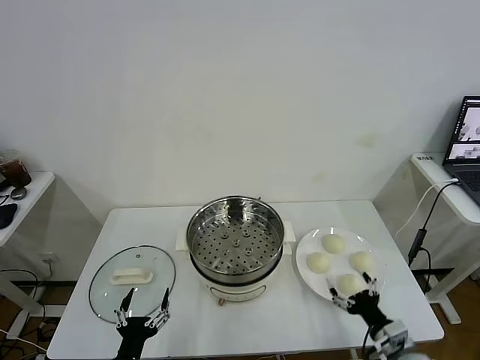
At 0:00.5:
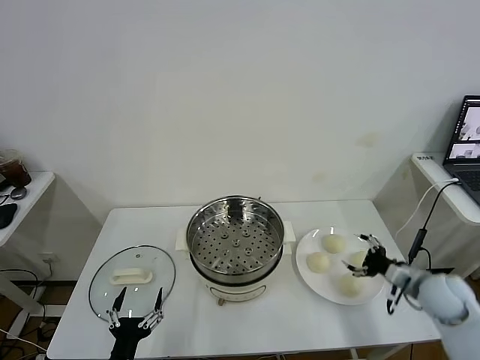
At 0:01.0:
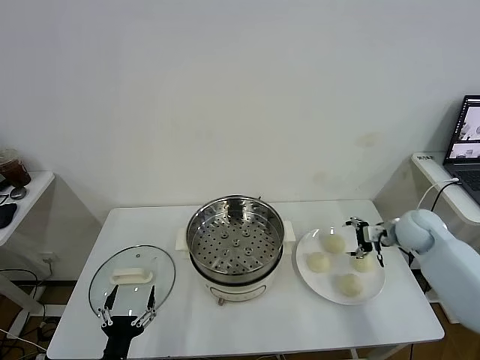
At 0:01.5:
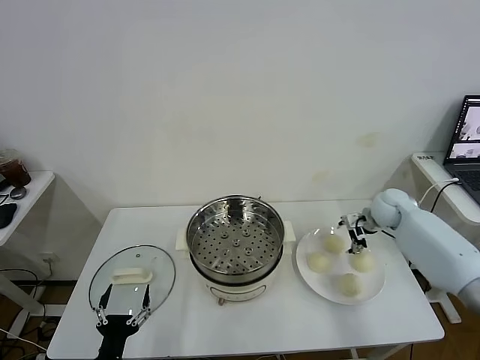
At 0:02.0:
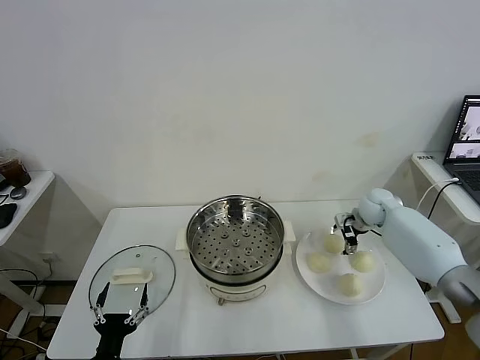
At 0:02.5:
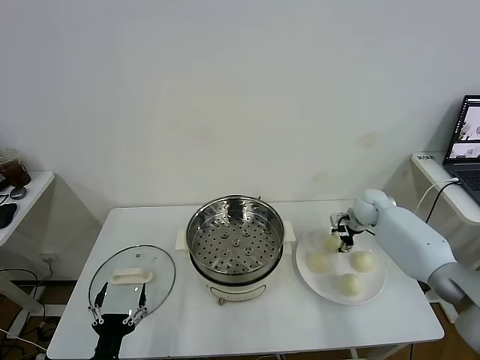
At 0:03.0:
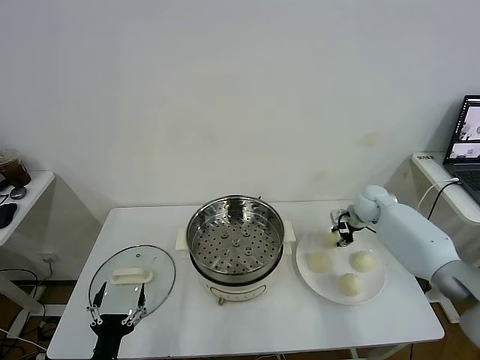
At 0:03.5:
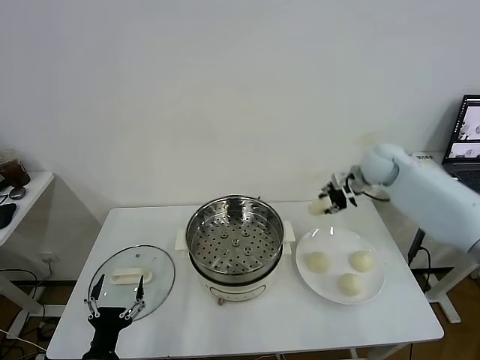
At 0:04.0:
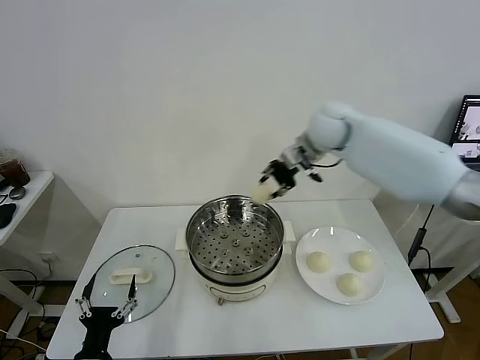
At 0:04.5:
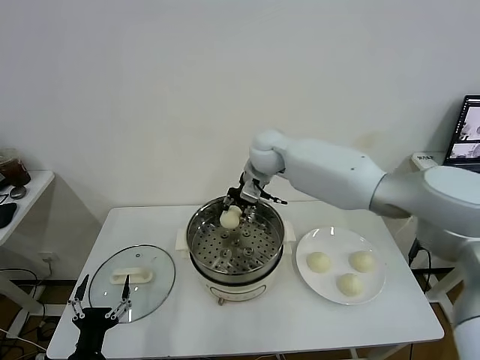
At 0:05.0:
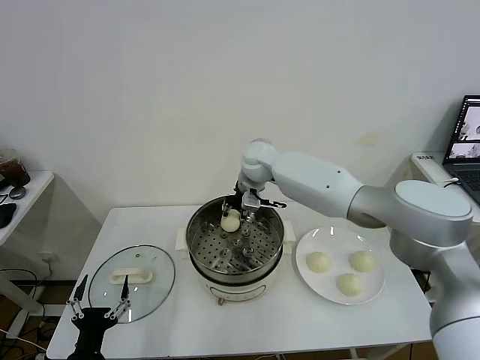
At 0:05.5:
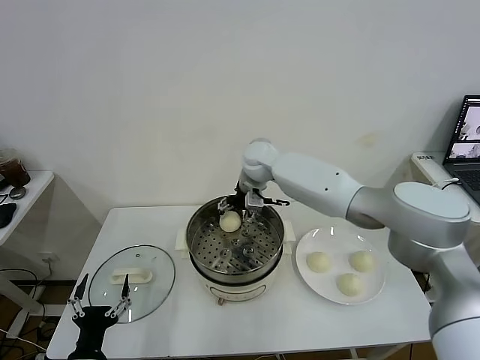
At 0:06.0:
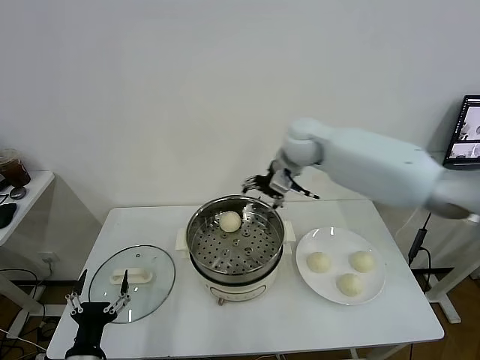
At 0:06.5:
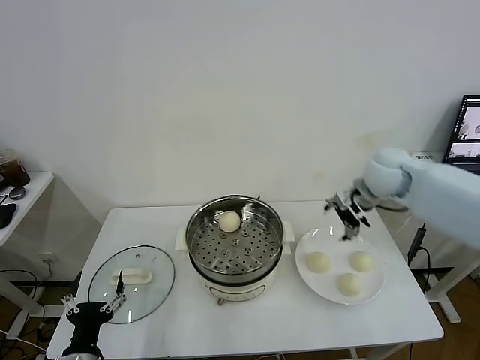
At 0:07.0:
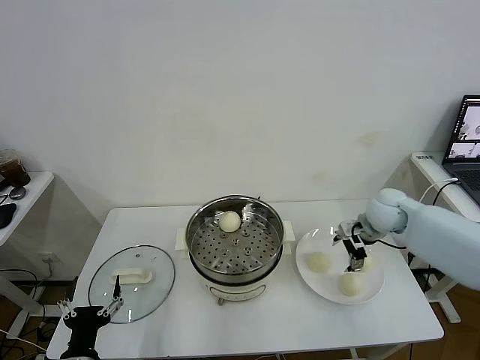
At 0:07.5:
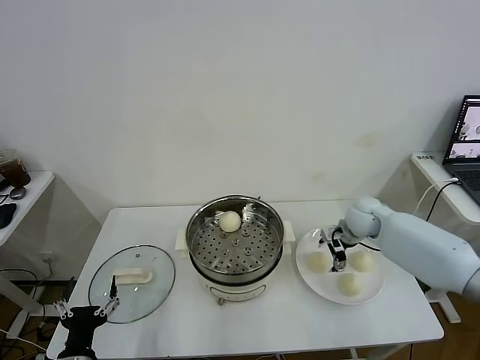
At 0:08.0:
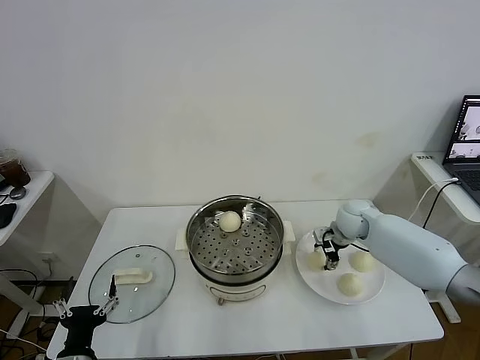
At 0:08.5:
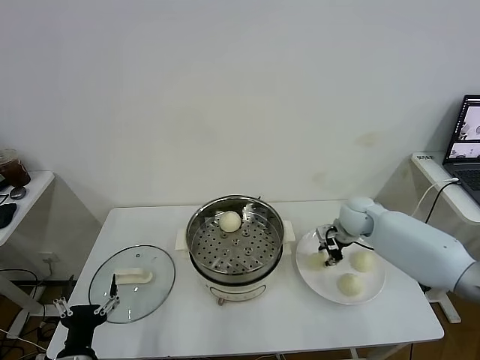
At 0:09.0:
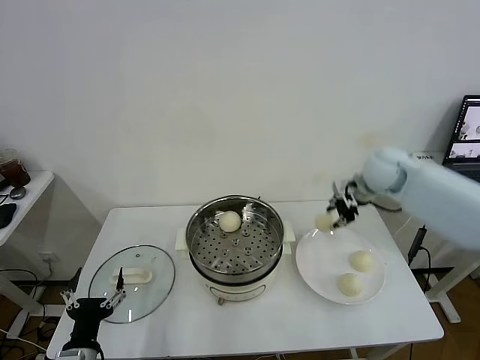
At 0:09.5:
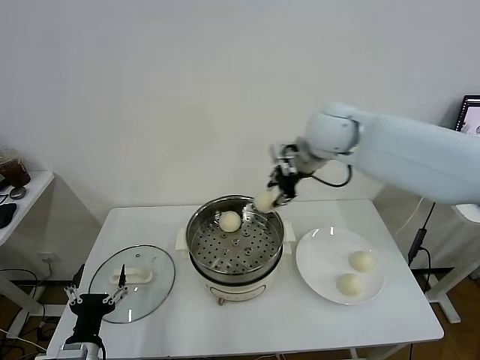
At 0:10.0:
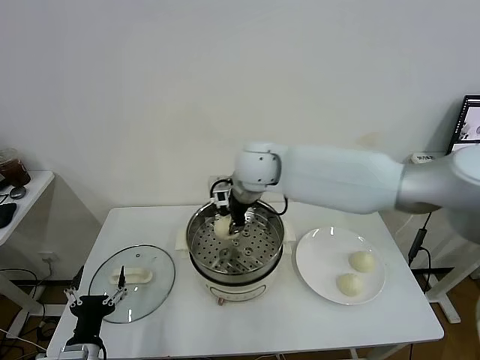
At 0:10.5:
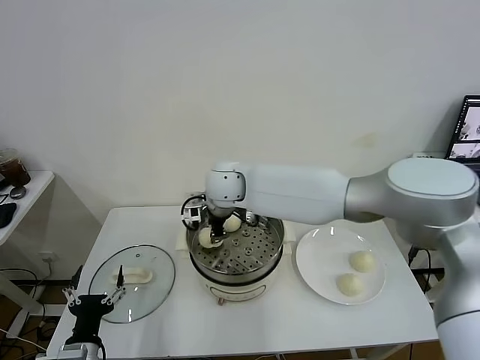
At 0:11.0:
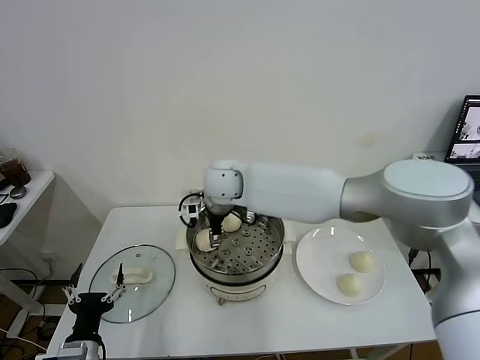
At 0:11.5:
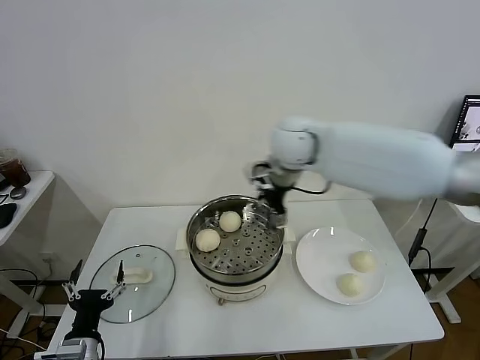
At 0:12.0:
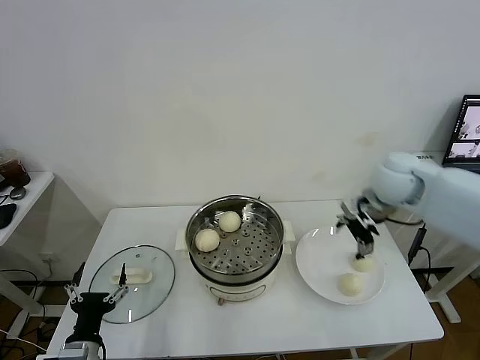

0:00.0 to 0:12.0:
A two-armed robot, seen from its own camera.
Task of the whole recording: take steamed baozi put them in steamer.
Step, 0:00.0 to 0:02.5: Grasp the baozi in the plate with right gripper.
Step, 0:03.0 to 0:05.5: Place the baozi on the steamer with right gripper.
Step, 0:06.0 to 0:08.0: Grasp the baozi in the plate with right gripper.
Step, 0:08.5 to 0:11.0: Place the baozi on the steamer with right gripper.
0:02.0 to 0:04.0: The right gripper heads upward and to the left, covering roughly 30 cm, and closes up.
0:04.0 to 0:06.0: The right gripper moves about 10 cm to the left and comes back, and opens its fingers.
0:06.0 to 0:08.0: The right gripper moves downward and to the right, approximately 25 cm, and closes.
0:08.0 to 0:10.0: The right gripper goes about 35 cm to the left and upward, and closes.
0:10.0 to 0:12.0: The right gripper shifts roughly 30 cm to the right, and opens its fingers.

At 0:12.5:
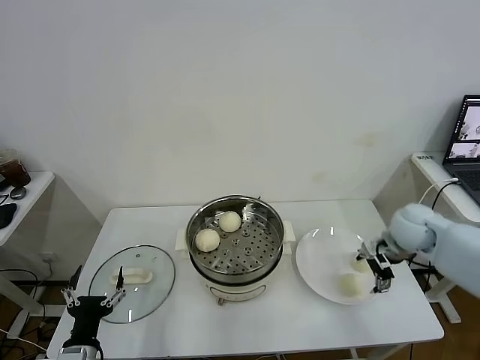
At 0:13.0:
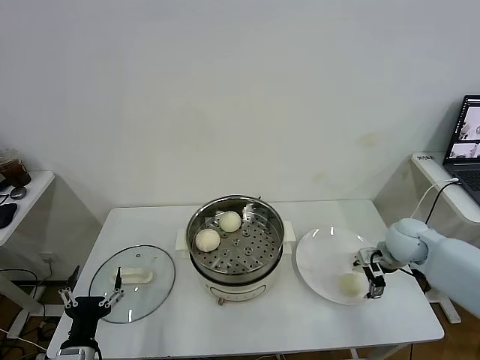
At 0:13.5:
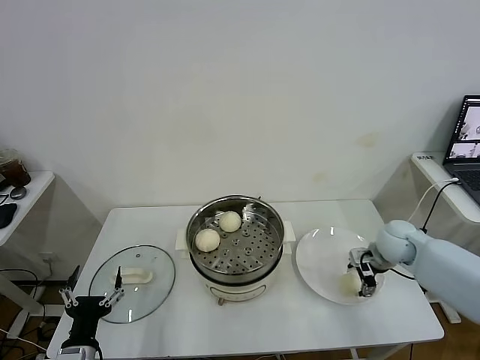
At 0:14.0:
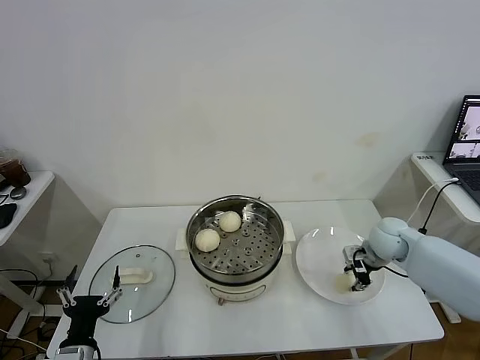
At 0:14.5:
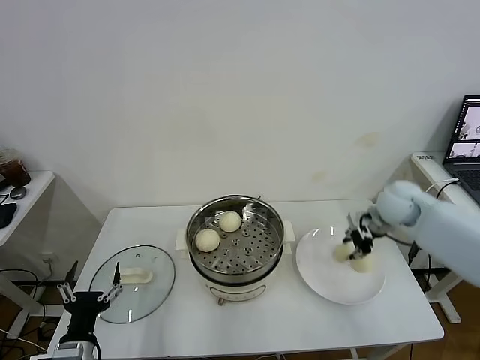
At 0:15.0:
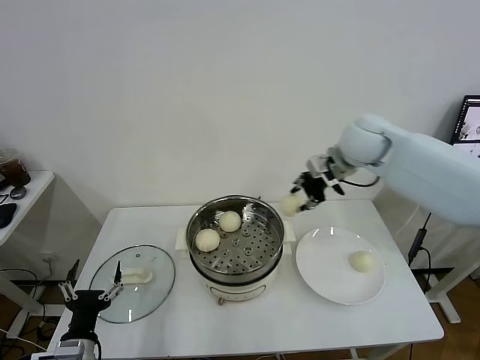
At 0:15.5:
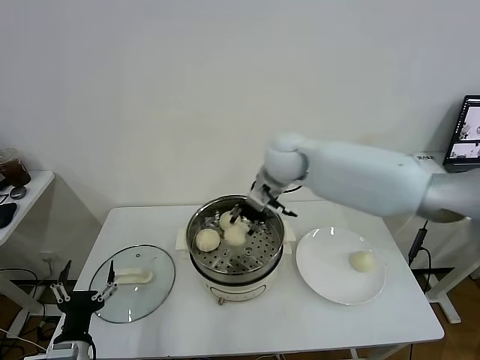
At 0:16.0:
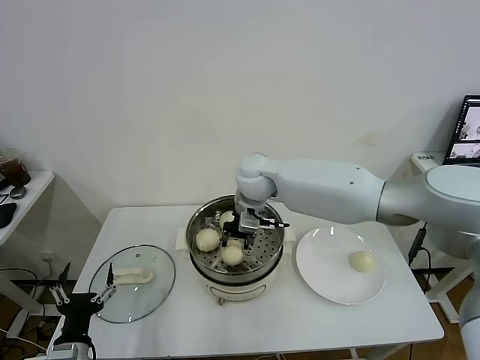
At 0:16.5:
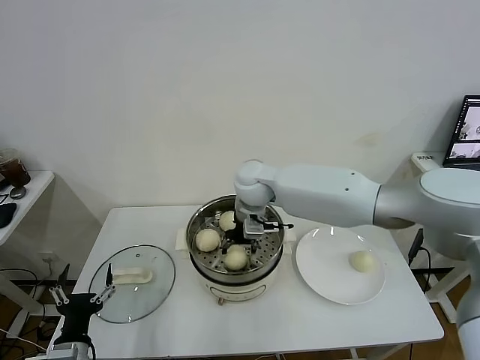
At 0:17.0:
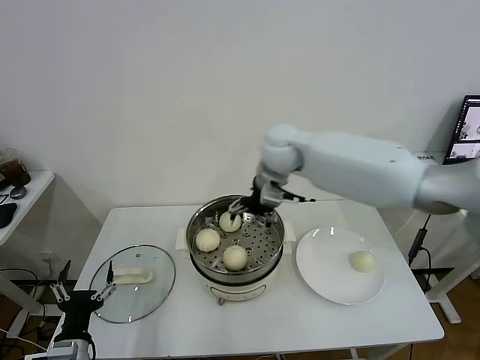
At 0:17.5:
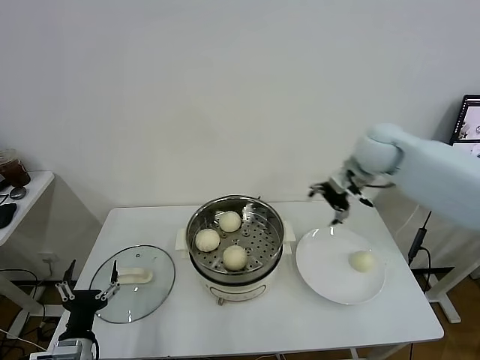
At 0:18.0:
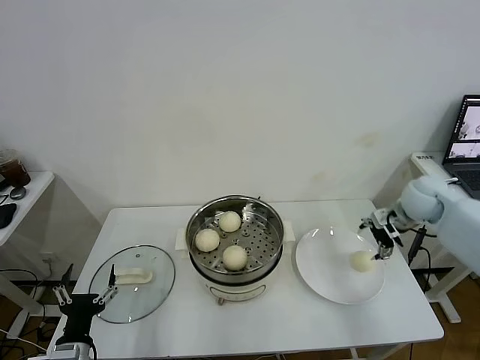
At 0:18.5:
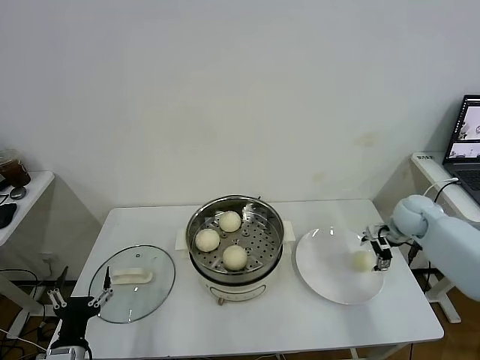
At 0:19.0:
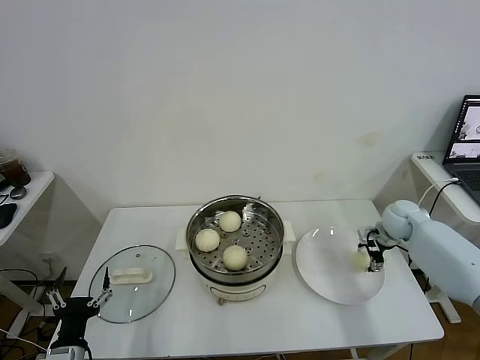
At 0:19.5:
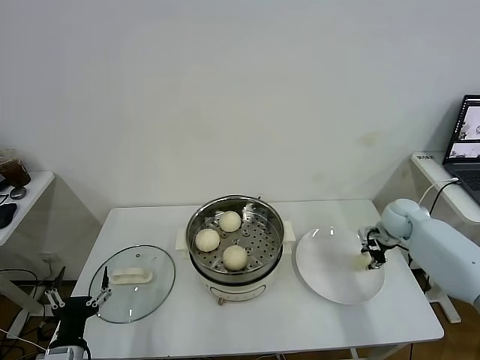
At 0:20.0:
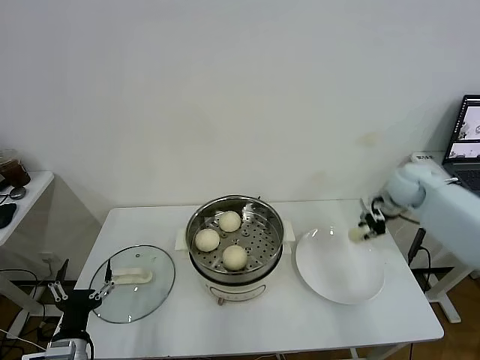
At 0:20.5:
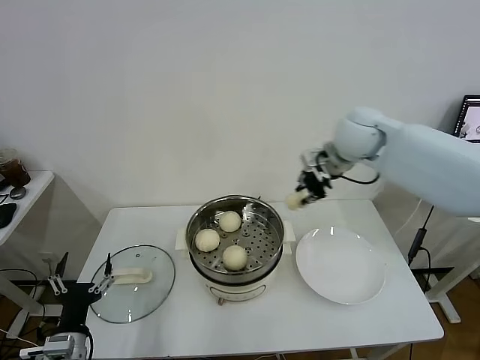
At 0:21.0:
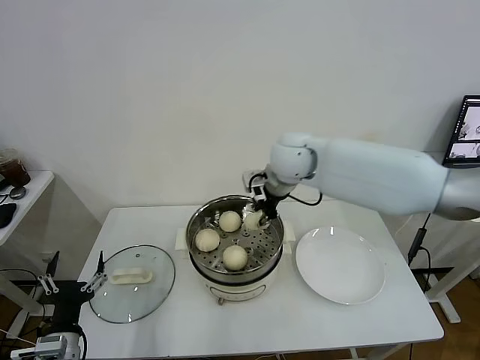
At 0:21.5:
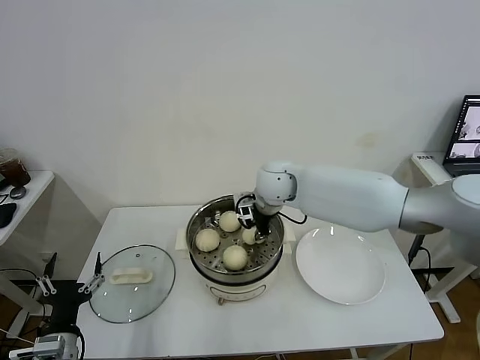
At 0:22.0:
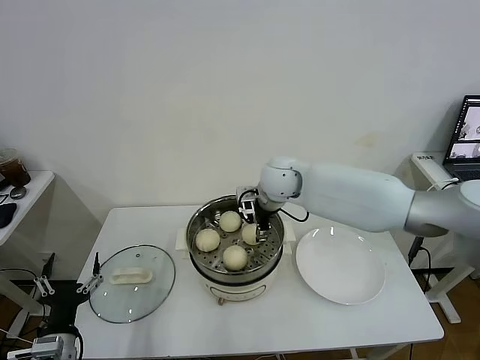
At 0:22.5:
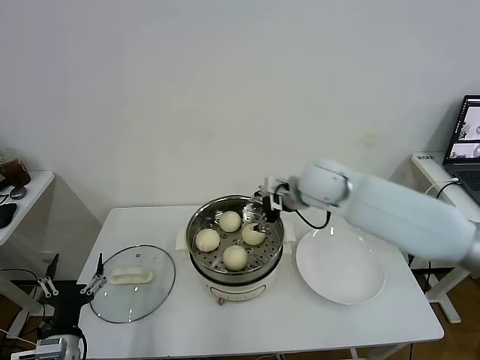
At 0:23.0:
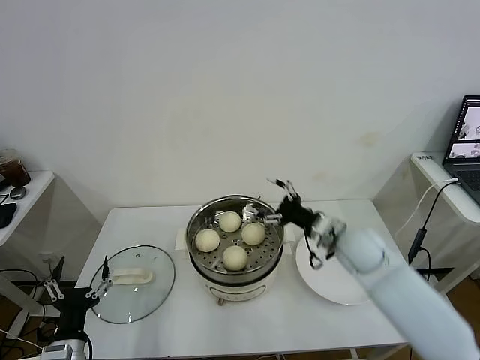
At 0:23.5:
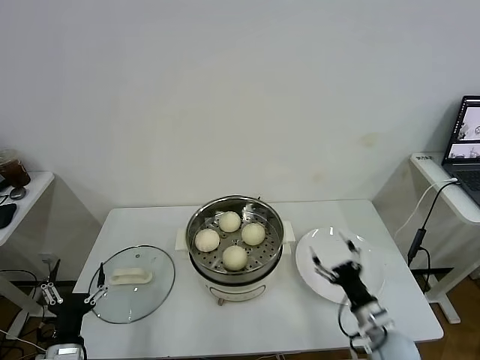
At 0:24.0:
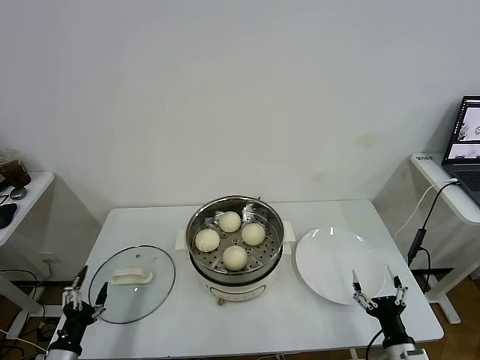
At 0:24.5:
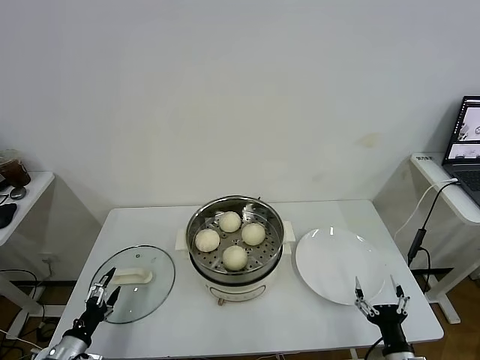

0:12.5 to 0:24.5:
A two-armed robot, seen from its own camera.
Task of the whole recording: take steamed baozi put them in steamer.
Step, 0:14.5 to 0:16.5: Place the baozi on the steamer with right gripper.
Step, 0:17.0 to 0:19.5: Grasp the baozi in the plate with right gripper.
Step, 0:20.0 to 0:22.0: Place the baozi on the steamer with right gripper.
0:12.5 to 0:14.5: The right gripper heads forward, covering approximately 5 cm, and closes its fingers.
0:14.5 to 0:16.5: The right gripper shifts approximately 30 cm to the left, and opens up.
0:16.5 to 0:18.5: The right gripper heads to the right, covering approximately 40 cm.
0:18.5 to 0:20.5: The right gripper moves upward and to the left, about 30 cm, and closes its fingers.
0:20.5 to 0:22.5: The right gripper moves downward, to the left and backward, approximately 10 cm, and opens up.
0:22.5 to 0:24.5: The right gripper travels backward, downward and to the right by about 50 cm. The left gripper travels downward and to the left by some 10 cm.

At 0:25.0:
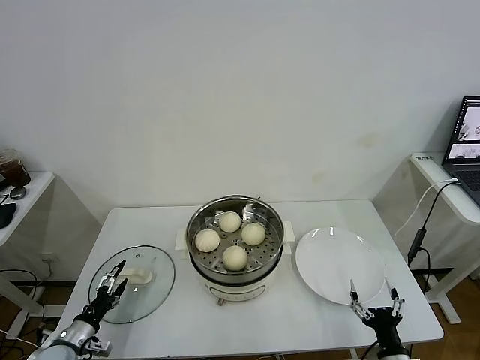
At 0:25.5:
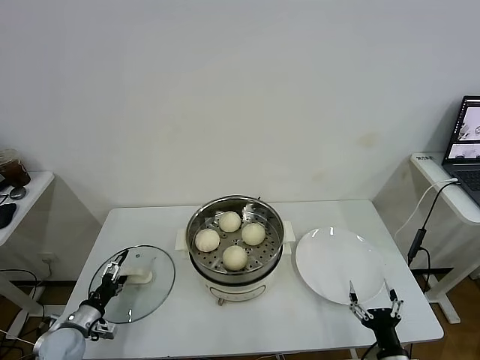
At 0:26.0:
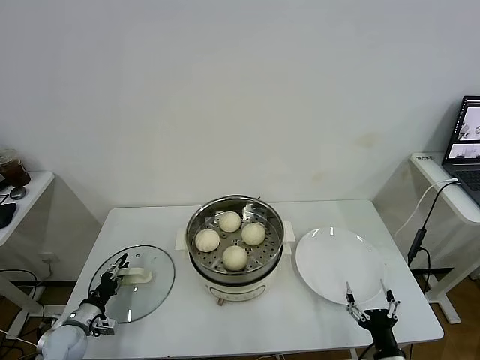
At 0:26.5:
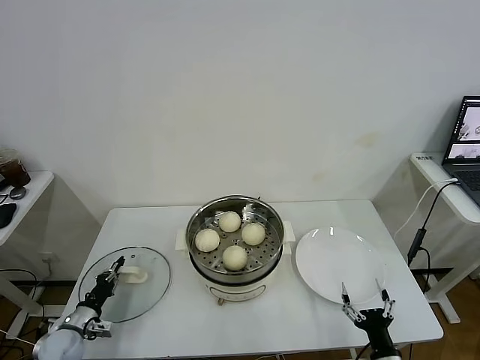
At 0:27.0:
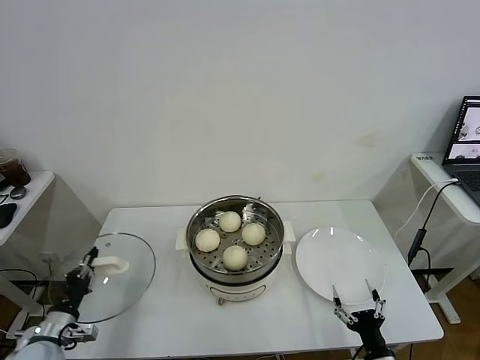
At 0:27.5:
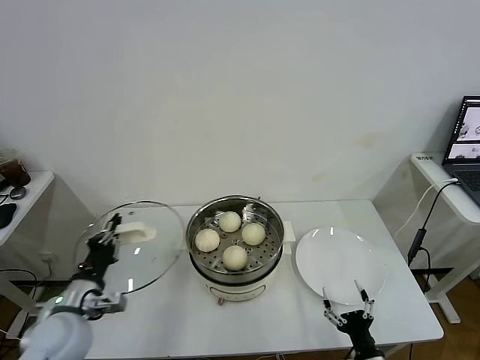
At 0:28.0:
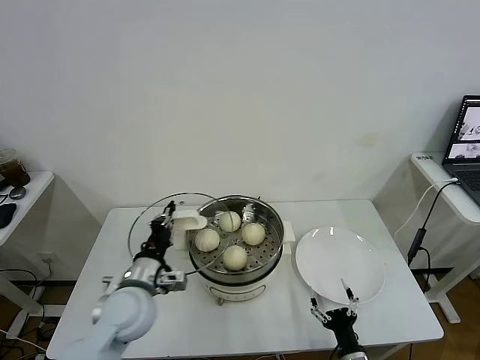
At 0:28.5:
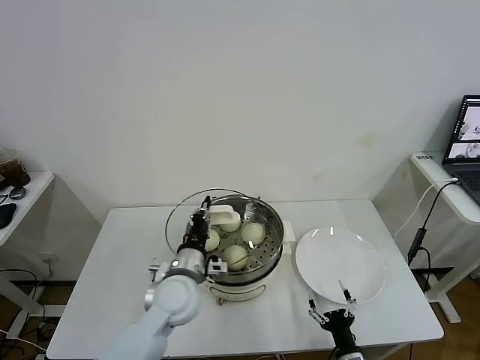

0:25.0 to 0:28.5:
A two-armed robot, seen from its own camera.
Task of the whole recording: take steamed baozi put them in steamer.
0:25.0 to 0:27.0: The left gripper shifts some 5 cm upward, and closes up.
0:27.0 to 0:28.5: The left gripper shifts roughly 30 cm to the right. The right gripper goes approximately 5 cm to the left.
